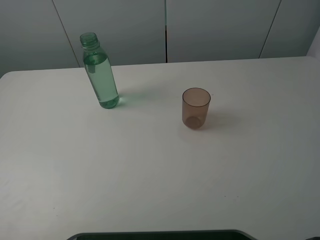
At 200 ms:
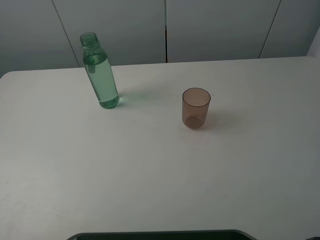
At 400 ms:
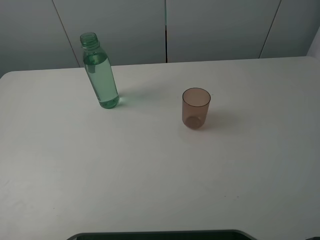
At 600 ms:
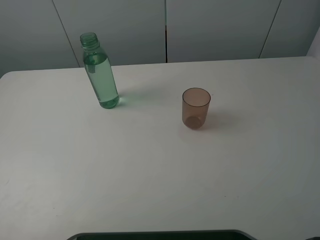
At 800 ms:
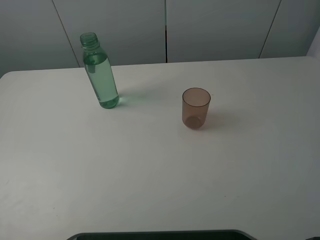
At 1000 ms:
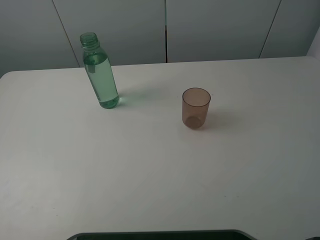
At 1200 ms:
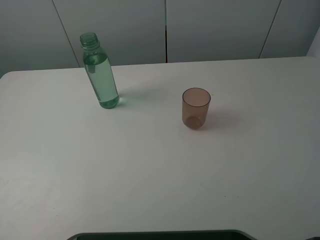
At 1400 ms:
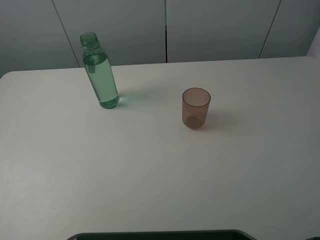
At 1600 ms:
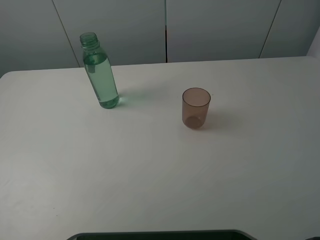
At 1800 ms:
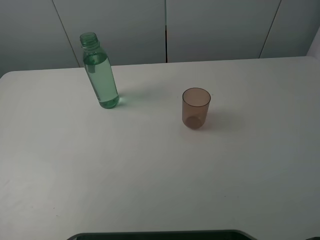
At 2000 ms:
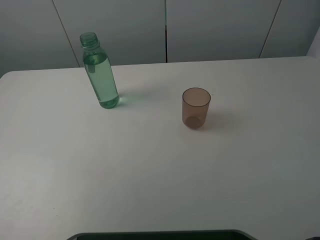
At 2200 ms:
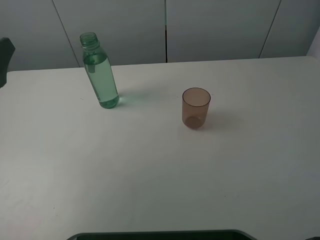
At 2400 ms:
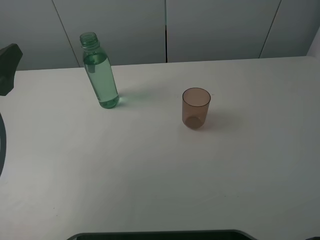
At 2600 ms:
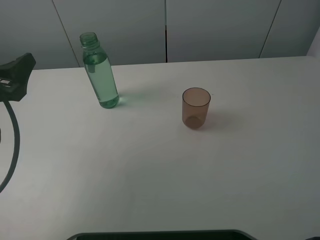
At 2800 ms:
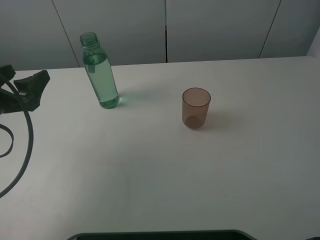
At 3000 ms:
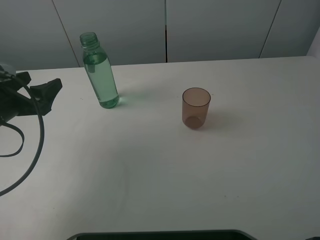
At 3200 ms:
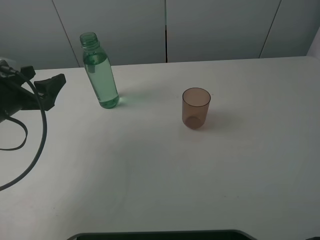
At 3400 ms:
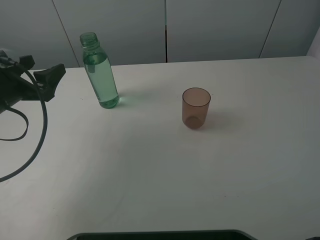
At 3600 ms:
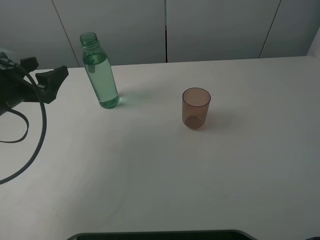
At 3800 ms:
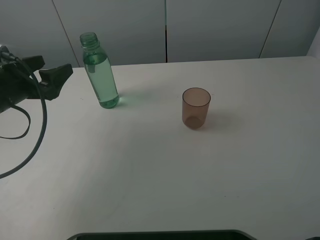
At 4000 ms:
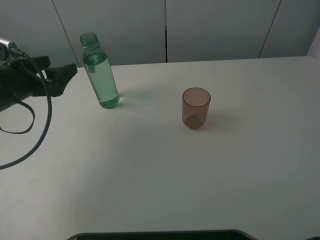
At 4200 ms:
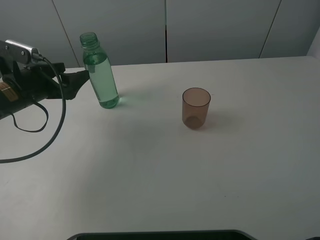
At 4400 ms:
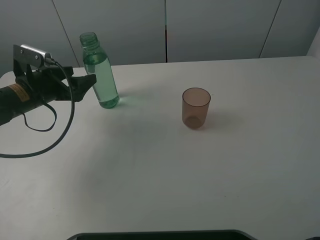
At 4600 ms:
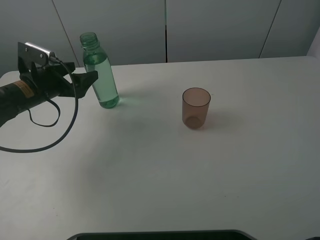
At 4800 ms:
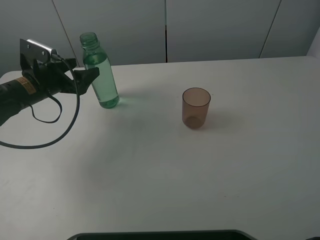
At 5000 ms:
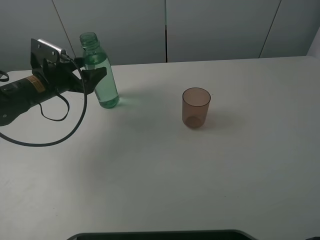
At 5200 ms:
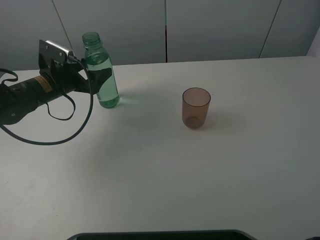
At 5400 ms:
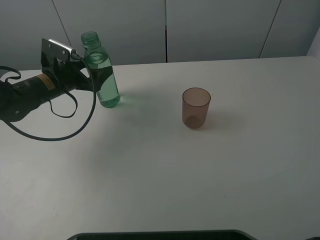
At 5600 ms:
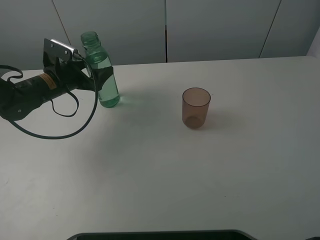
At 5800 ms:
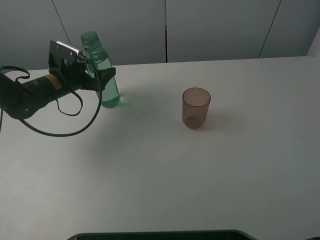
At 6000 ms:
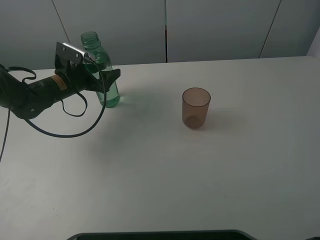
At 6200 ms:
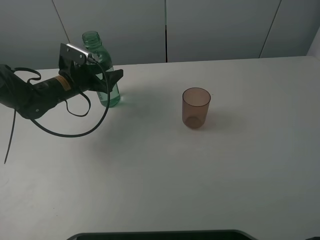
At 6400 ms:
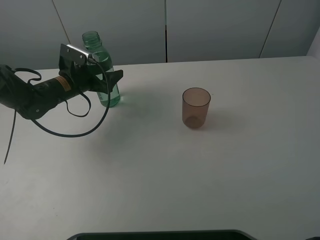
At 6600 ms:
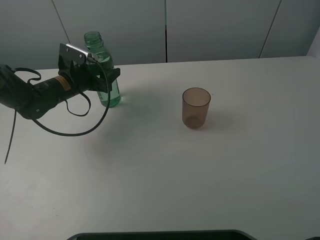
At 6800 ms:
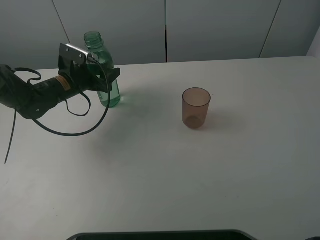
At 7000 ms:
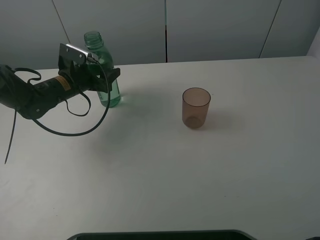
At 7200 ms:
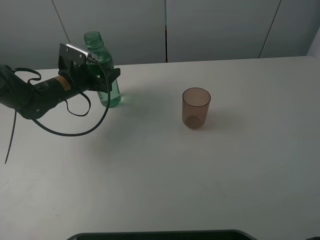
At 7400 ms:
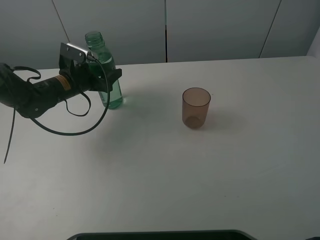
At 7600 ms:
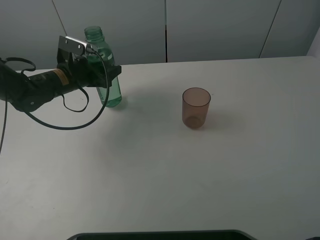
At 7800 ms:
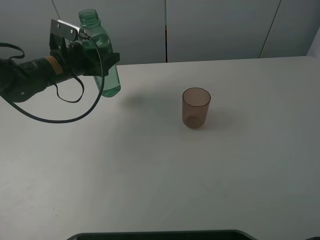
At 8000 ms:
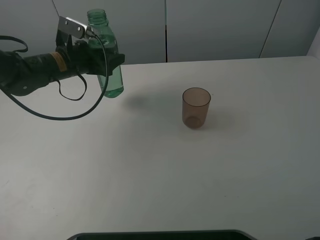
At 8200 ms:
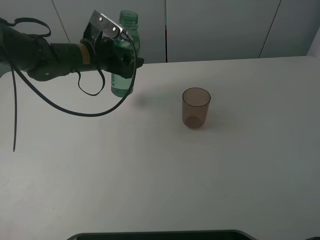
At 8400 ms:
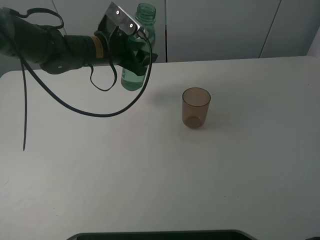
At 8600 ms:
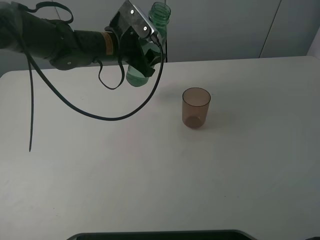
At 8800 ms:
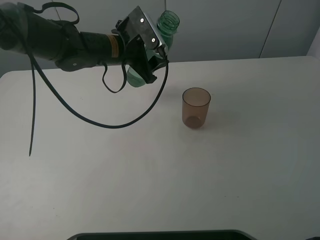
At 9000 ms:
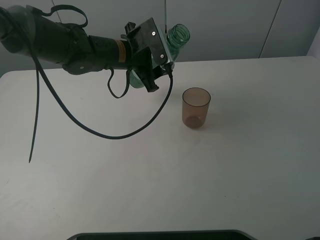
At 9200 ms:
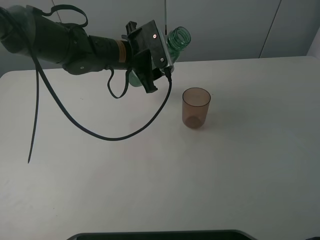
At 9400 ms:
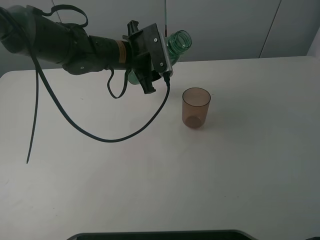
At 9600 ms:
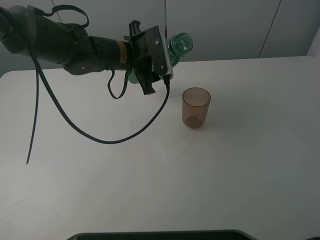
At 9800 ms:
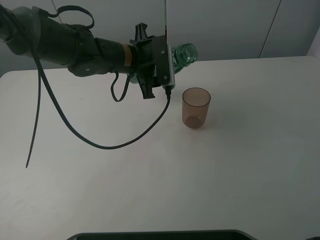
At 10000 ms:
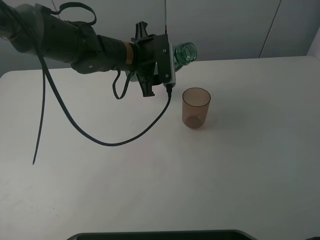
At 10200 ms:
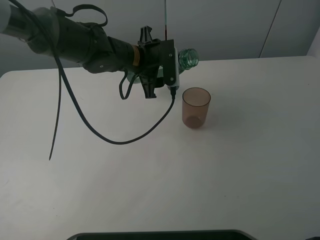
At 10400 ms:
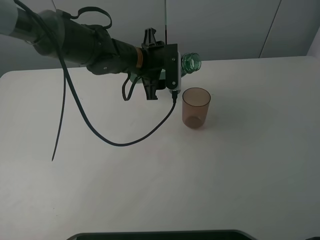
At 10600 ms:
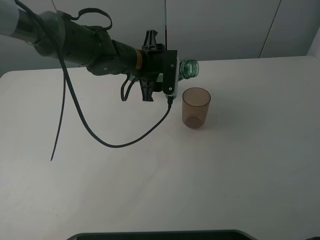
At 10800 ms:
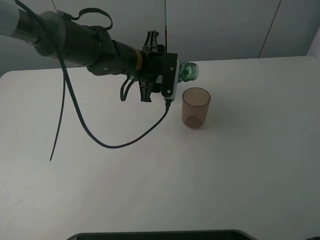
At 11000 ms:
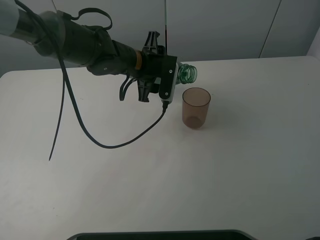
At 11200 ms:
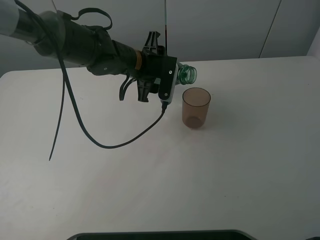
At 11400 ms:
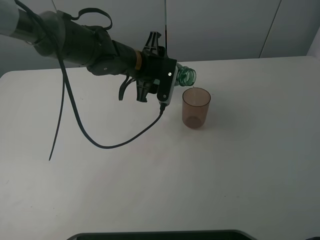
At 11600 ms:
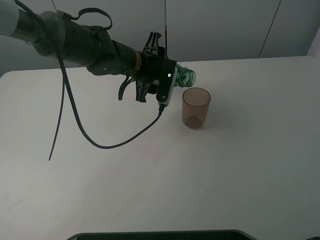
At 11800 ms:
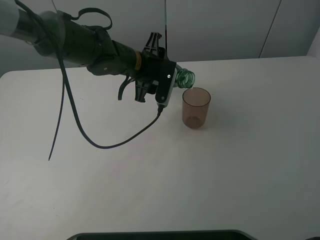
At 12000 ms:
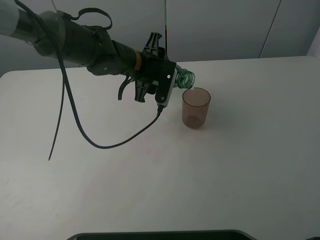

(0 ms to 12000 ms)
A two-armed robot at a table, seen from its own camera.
Task of the whole recording: pick up the bottle filled with water and pour it into the pink cup.
Step, 0 ms - 6400 ms: Grasp the green bottle with the left gripper.
1600 ms - 3000 ms: The left gripper shifts approximately 20 cm downward and forward.
3000 ms - 4400 ms: The left gripper travels forward by some 10 cm.
4400 ms - 6000 ms: The left gripper heads forward and to the right, covering about 10 cm.
6000 ms - 7600 ms: The left gripper closes its fingers.
7600 ms - 9000 ms: The left gripper is displaced to the right and upward by some 15 cm.
10400 ms - 12000 ms: The grippers make only small movements.

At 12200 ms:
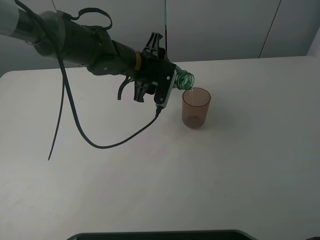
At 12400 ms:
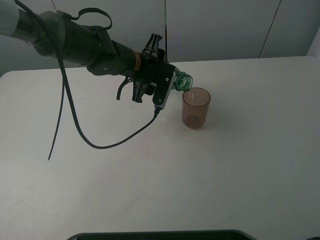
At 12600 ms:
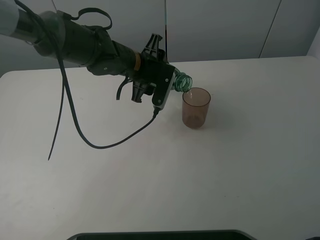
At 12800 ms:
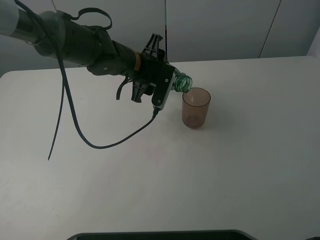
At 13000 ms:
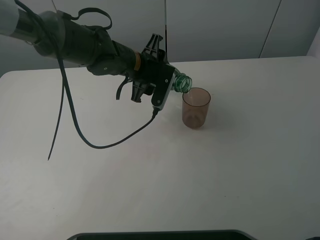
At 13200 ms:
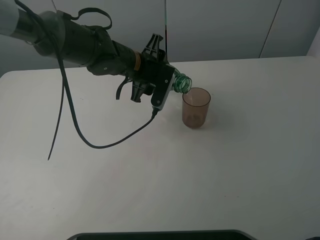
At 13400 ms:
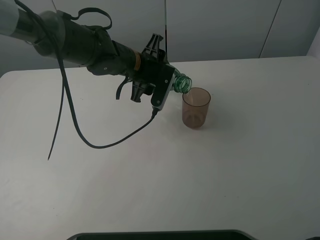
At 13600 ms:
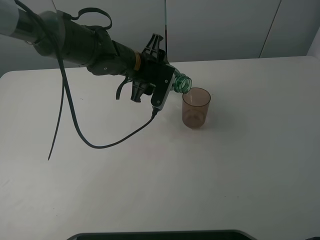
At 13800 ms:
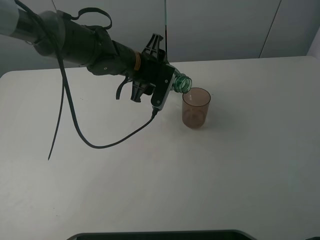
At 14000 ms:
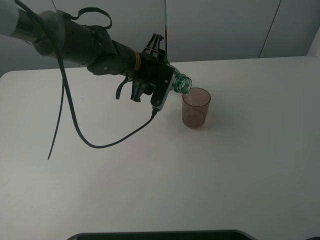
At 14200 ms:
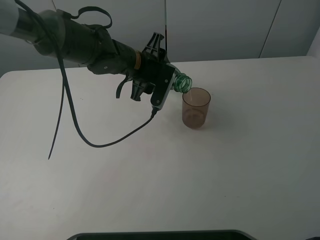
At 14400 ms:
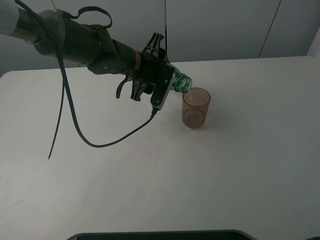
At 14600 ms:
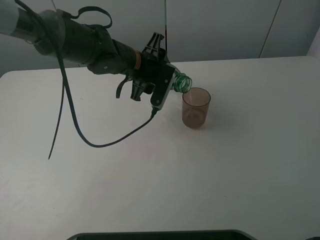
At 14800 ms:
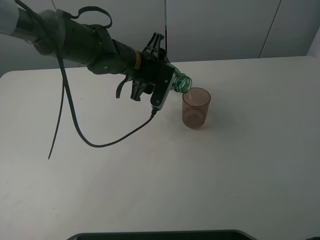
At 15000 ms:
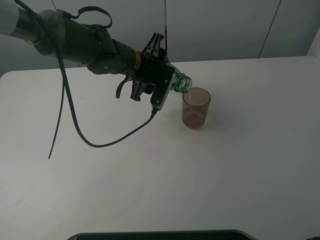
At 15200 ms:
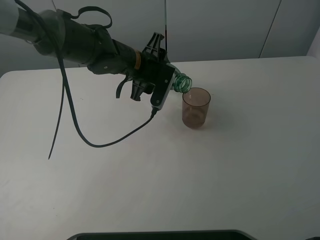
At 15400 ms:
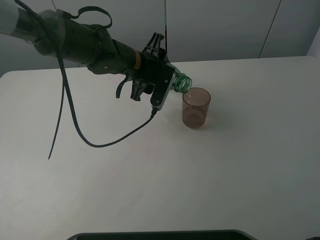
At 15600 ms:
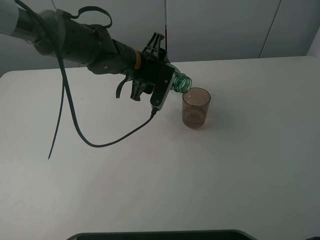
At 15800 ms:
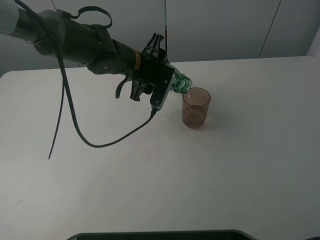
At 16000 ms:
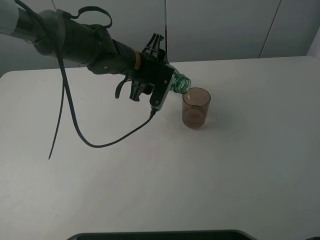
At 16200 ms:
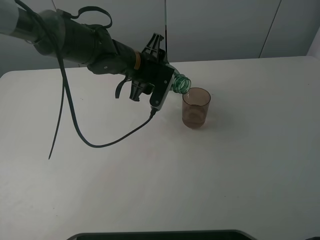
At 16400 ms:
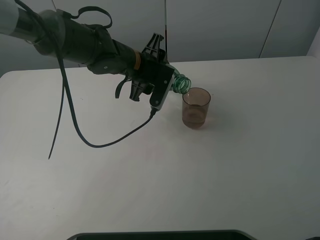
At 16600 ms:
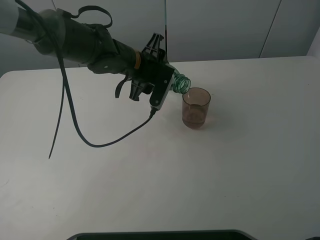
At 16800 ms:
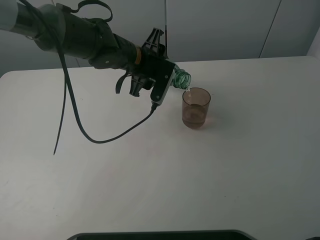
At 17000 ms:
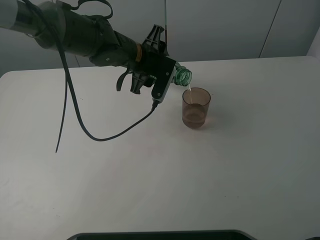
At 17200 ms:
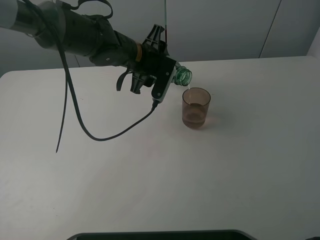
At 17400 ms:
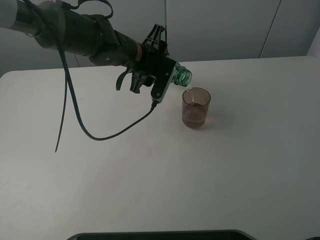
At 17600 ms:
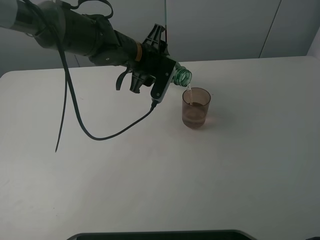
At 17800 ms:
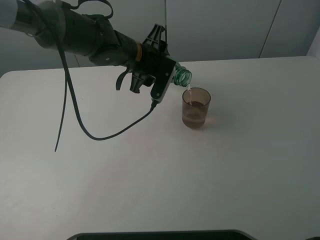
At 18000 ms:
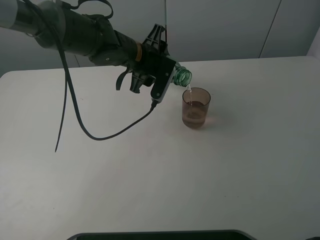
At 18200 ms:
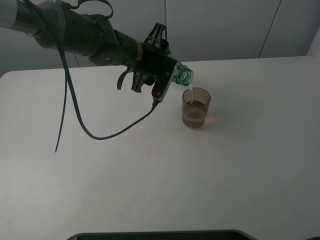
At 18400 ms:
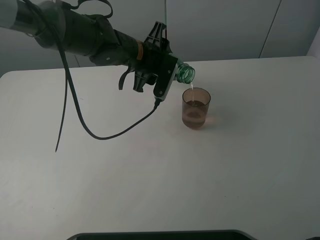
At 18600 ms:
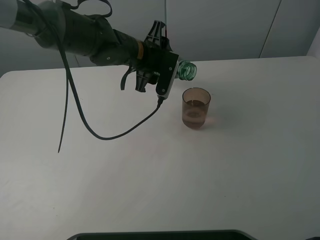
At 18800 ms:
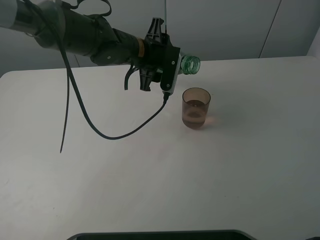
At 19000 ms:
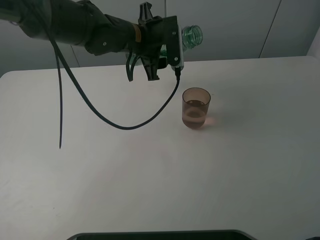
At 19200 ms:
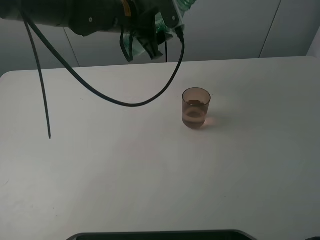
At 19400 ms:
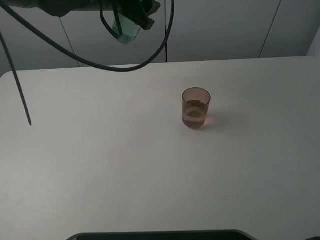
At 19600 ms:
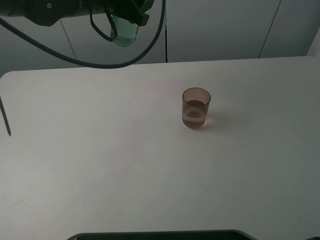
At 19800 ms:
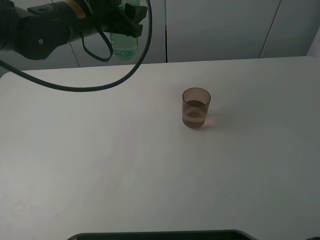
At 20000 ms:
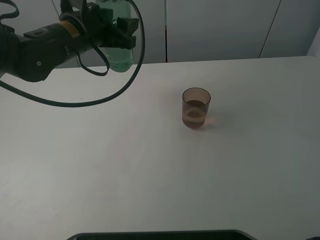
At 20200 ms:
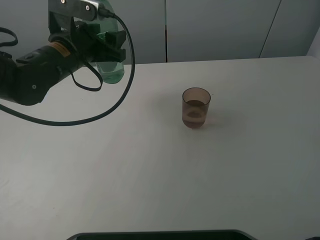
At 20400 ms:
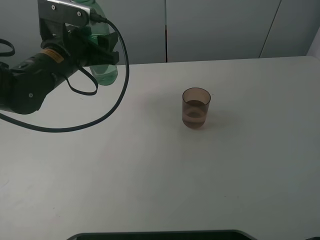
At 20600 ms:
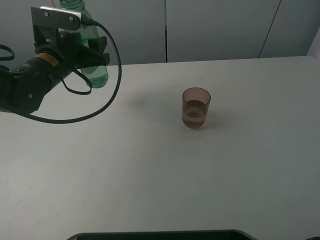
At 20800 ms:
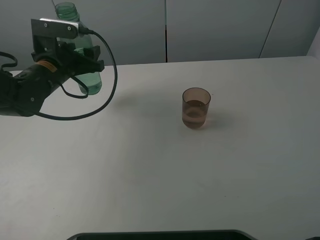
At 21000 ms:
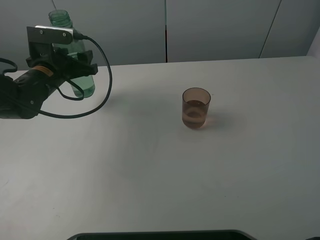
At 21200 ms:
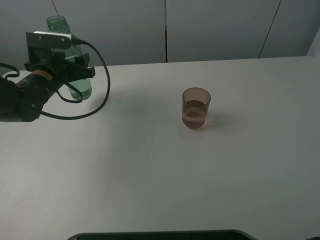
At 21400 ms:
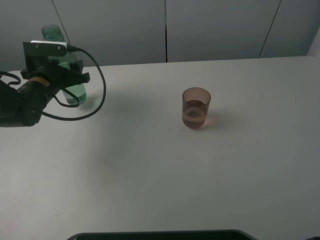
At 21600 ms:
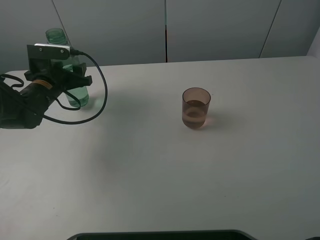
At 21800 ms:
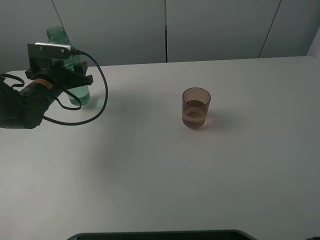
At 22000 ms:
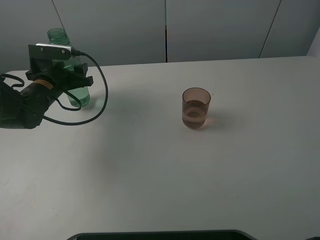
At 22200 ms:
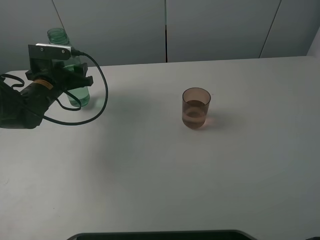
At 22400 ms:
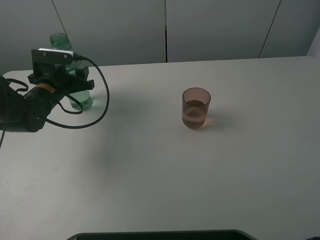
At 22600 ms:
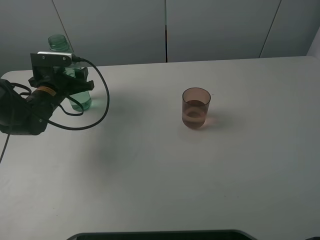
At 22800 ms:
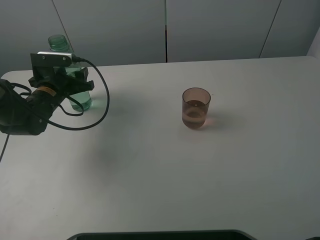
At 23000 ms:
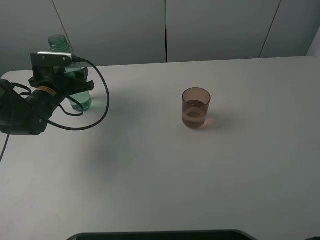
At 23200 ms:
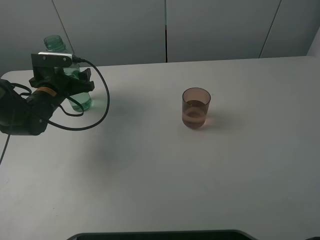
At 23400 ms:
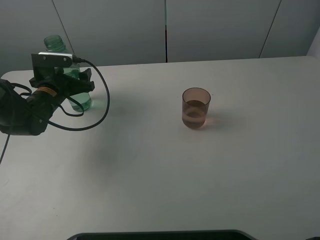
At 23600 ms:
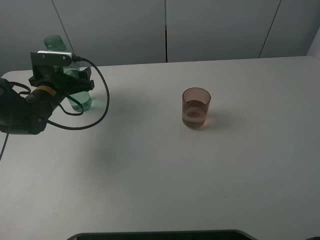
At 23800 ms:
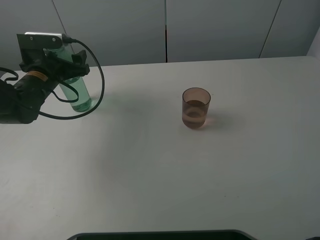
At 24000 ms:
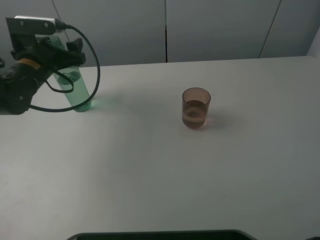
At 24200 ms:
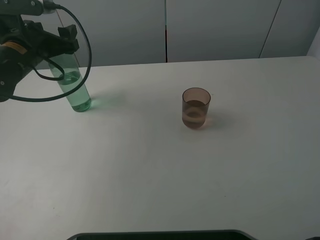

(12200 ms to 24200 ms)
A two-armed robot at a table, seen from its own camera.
Task of the whole recording: pick up the bottle filled with water and pour it into the pink cup.
Step, 12200 ms - 18800 ms: Pour water from green bottle to pink cup with the left gripper.
12200 ms - 13800 ms: Both grippers stay put.
13800 ms - 16600 ms: Both grippers stay about where they are.
16600 ms - 18200 ms: The grippers make only small movements.
18200 ms - 19800 ms: The left gripper heads to the left and upward, covering about 10 cm.
19800 ms - 21200 ms: The left gripper travels downward and to the left by roughly 15 cm.
21200 ms - 22600 ms: There are only small adjustments of the grippers.
22600 ms - 24200 ms: The left gripper goes roughly 10 cm upward, and opens its fingers.
